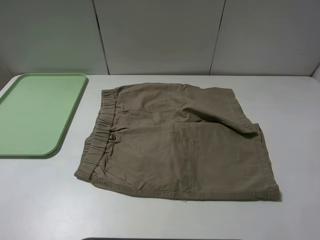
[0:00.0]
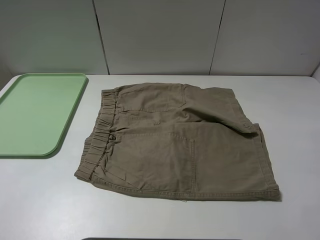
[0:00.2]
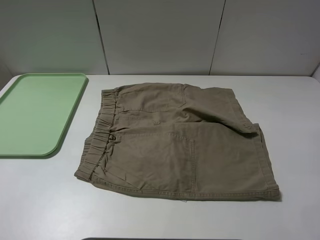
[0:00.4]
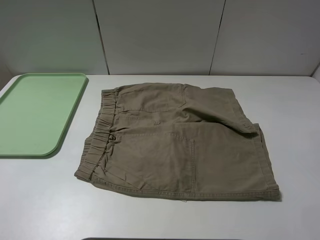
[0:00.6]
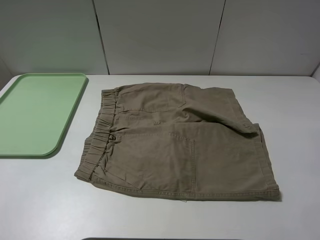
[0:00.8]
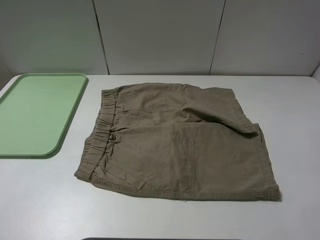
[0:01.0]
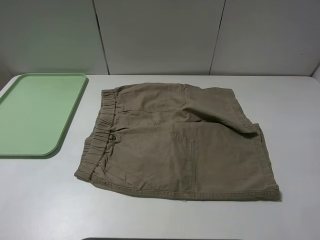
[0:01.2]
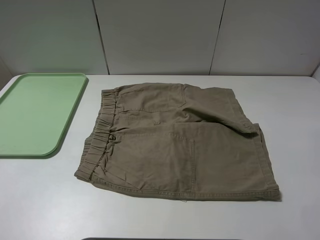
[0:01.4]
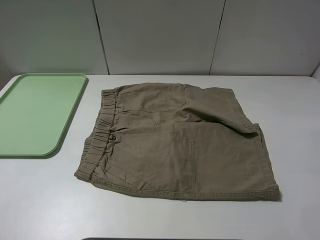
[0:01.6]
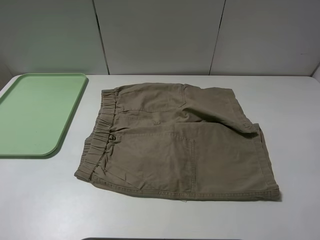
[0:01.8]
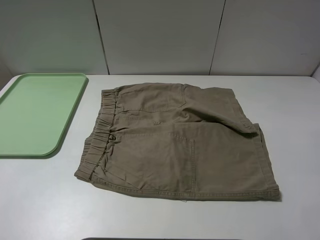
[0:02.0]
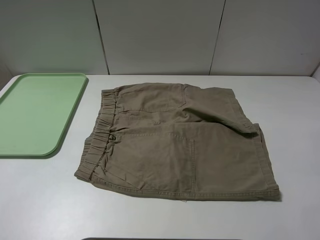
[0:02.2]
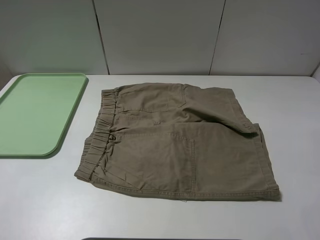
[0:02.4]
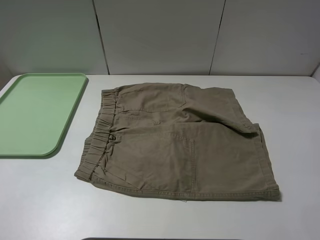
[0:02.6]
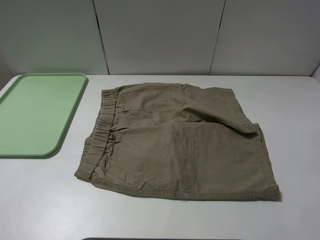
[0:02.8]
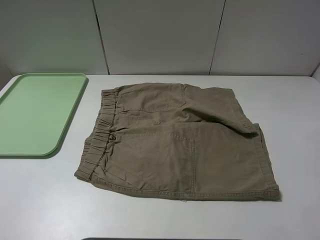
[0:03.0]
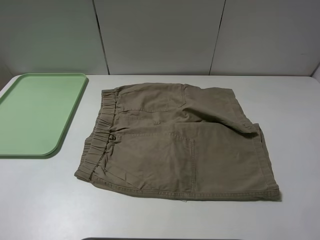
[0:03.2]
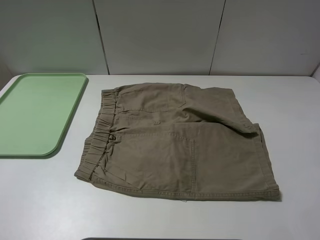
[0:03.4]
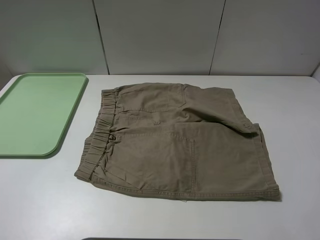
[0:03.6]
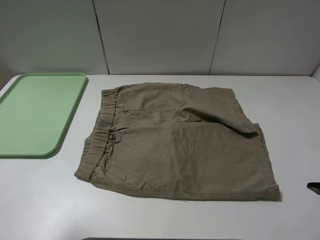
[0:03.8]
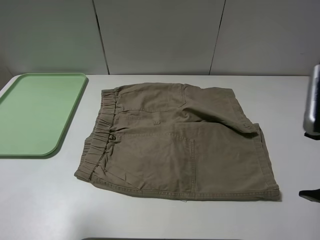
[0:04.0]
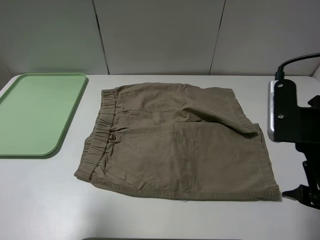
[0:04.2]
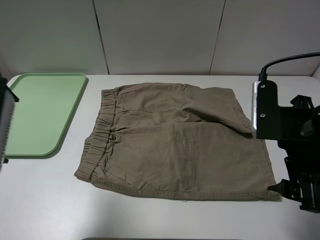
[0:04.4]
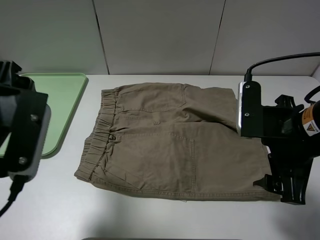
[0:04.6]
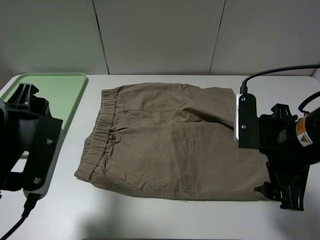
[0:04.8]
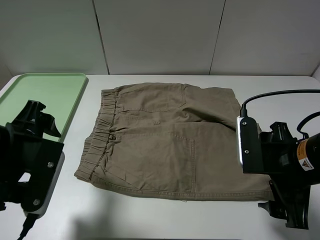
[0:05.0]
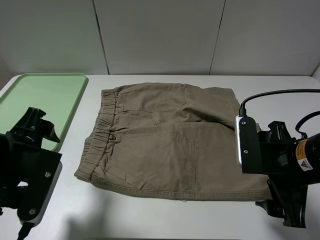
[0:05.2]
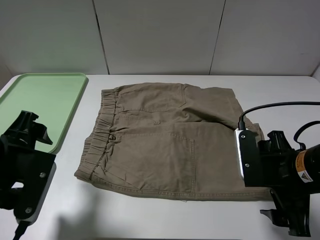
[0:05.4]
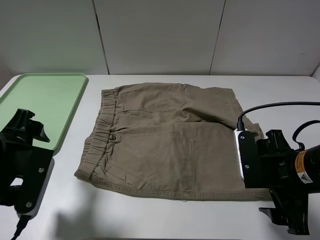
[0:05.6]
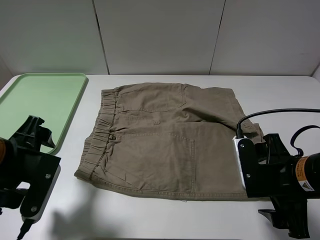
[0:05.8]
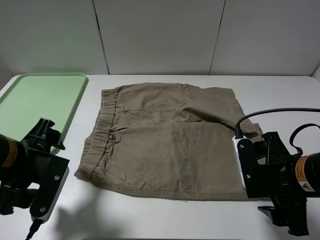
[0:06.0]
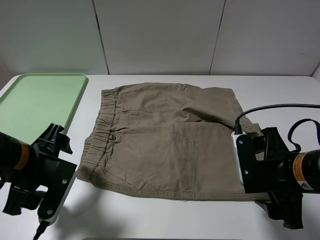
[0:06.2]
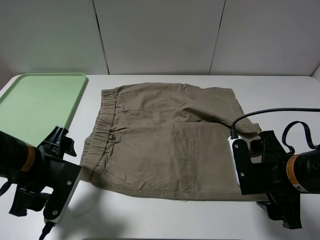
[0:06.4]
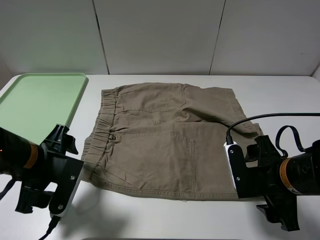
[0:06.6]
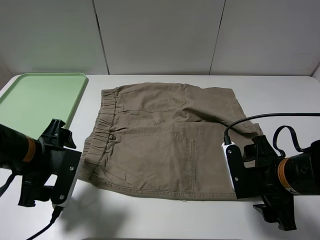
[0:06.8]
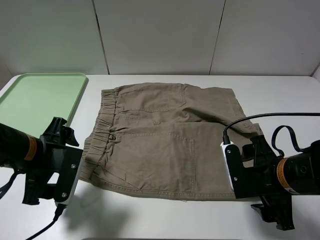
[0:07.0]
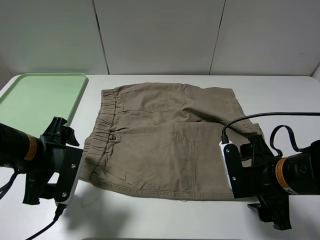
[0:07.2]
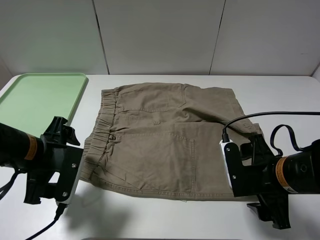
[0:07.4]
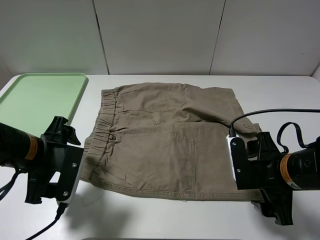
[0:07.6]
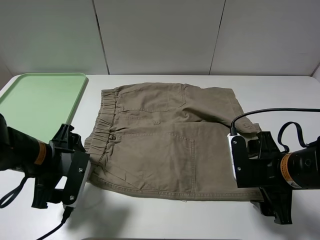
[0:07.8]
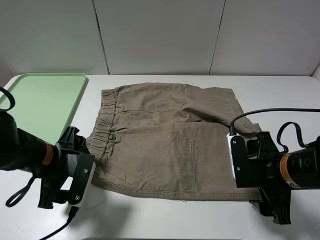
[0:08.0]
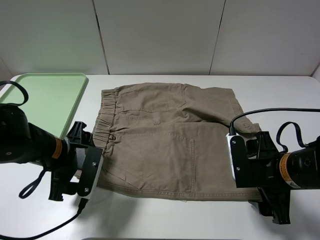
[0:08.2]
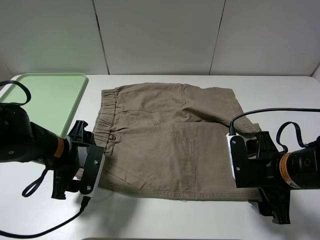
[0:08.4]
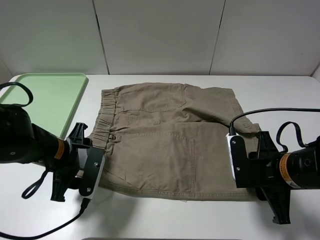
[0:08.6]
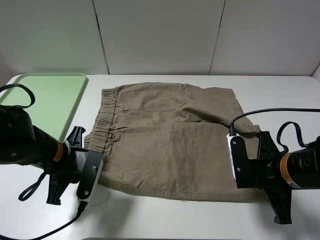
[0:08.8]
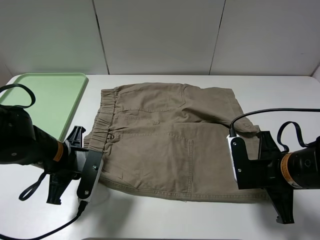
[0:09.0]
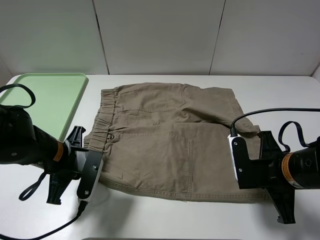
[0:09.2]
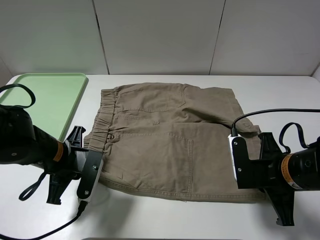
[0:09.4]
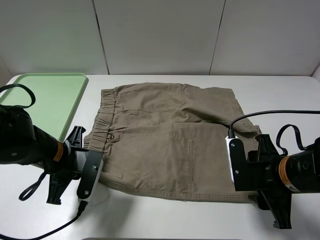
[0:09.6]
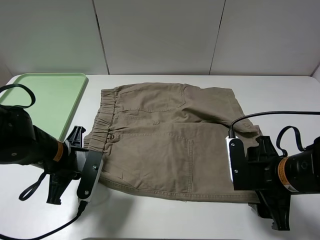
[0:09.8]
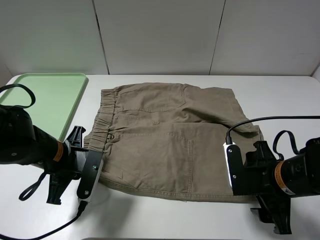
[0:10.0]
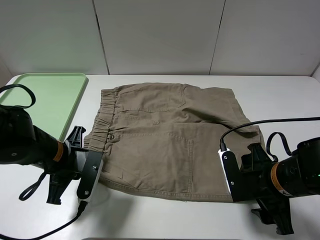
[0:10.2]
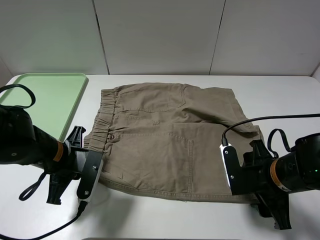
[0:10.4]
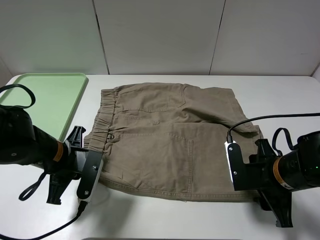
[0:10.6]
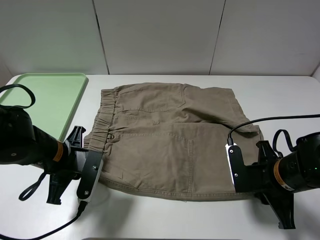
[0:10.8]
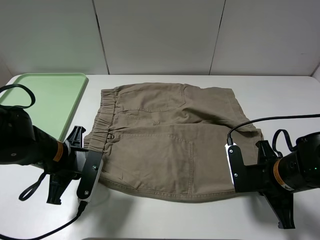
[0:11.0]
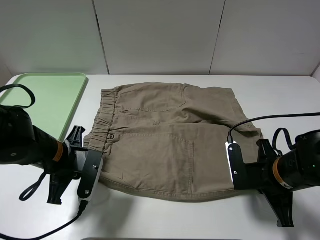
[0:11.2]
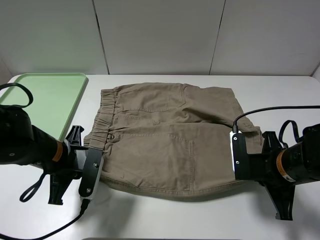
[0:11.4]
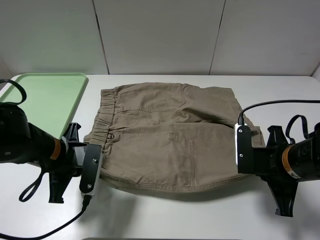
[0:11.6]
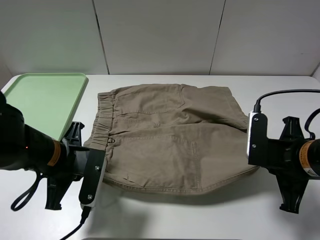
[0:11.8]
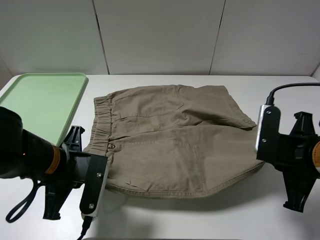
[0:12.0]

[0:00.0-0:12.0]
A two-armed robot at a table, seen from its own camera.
Task of the whole recording: fold the khaki jeans in half with two grippers, then fold them in half again, and use the left claw to place the folded fold khaki jeans on the tray.
Step, 0:00.0 to 0:08.8: Grasp the khaki trousers with the left gripper.
Step, 0:09.0 to 0:11.0: Grasp the khaki trousers with the right gripper.
0:00.0 to 0:01.6: Both grippers stay about where they are.
0:03.0 to 0:04.4: The right gripper is displaced forward and to the left by about 15 cm; the left gripper moves forward and to the right, roughly 20 cm.
0:04.4 to 0:06.0: The left gripper shifts about 15 cm downward. Meanwhile the right gripper goes some 10 cm downward.
0:06.0 to 0:07.6: The grippers move only a little.
0:07.6 to 0:09.0: The right gripper closes its fingers. The left gripper closes up.
0:09.0 to 0:10.4: The right gripper opens its fingers.
0:10.4 to 0:12.0: The left gripper ends up about 10 cm from where it was, while the right gripper travels upward by about 10 cm, and closes.

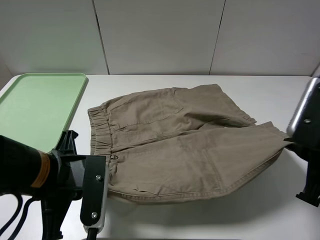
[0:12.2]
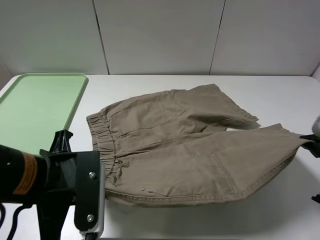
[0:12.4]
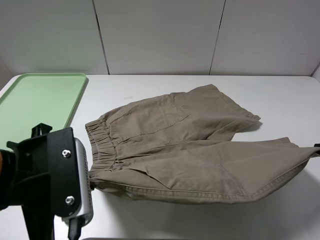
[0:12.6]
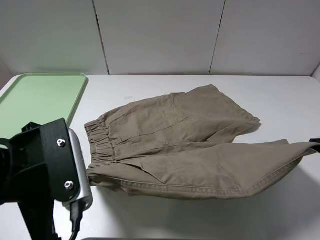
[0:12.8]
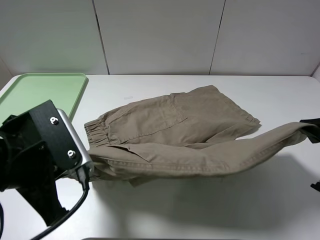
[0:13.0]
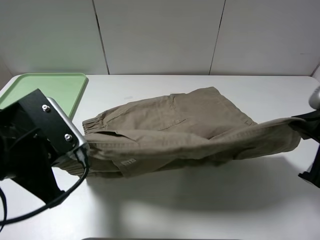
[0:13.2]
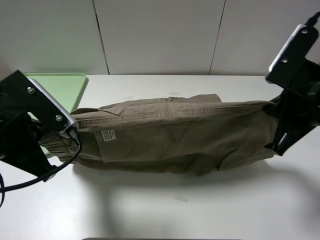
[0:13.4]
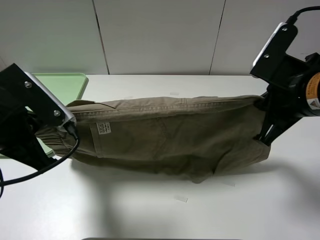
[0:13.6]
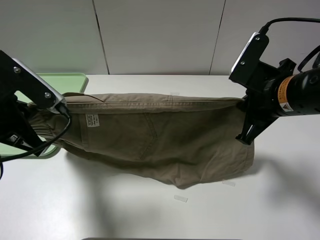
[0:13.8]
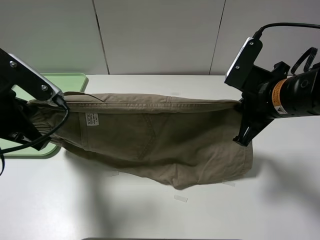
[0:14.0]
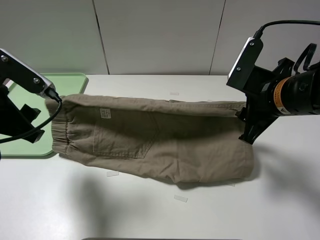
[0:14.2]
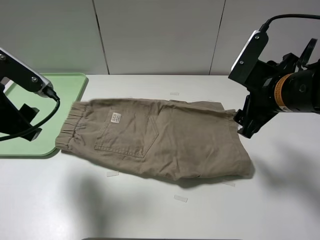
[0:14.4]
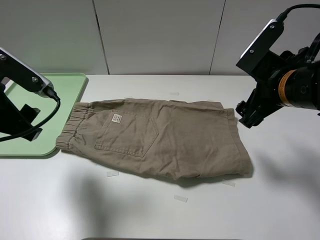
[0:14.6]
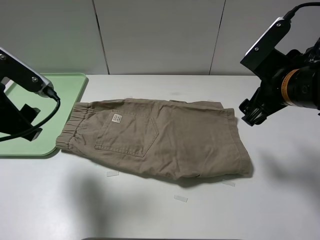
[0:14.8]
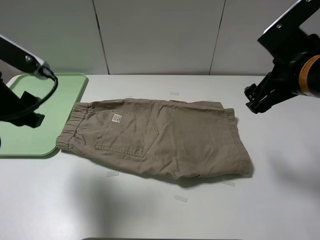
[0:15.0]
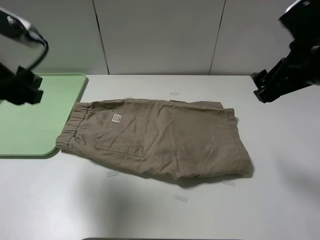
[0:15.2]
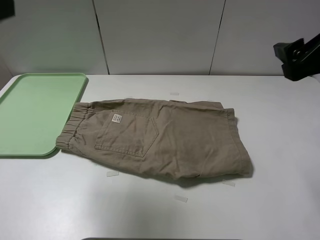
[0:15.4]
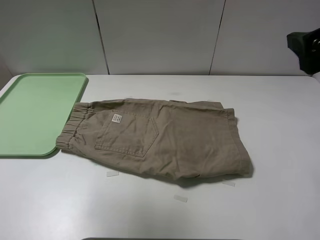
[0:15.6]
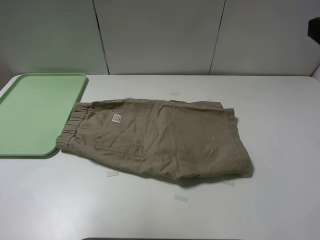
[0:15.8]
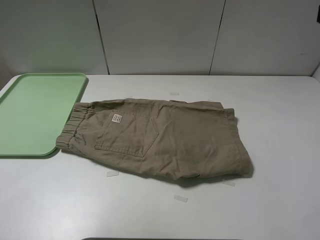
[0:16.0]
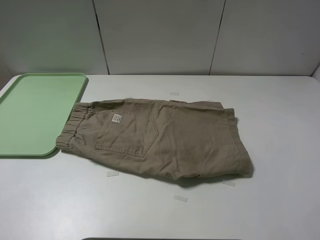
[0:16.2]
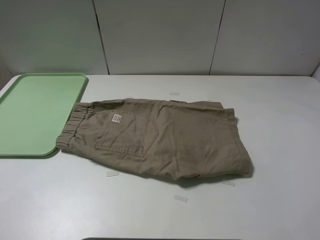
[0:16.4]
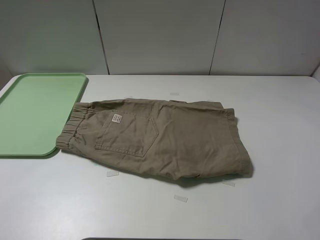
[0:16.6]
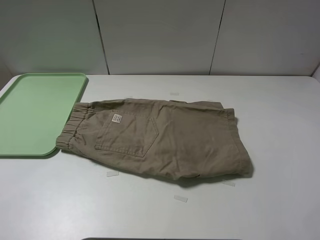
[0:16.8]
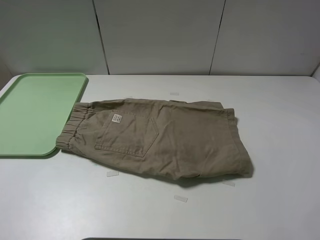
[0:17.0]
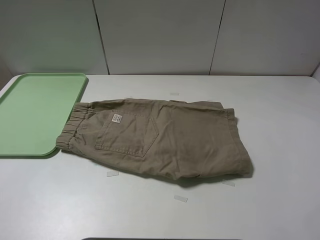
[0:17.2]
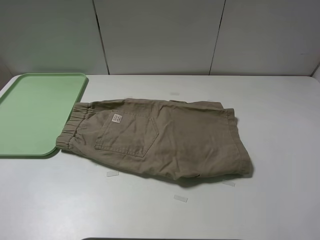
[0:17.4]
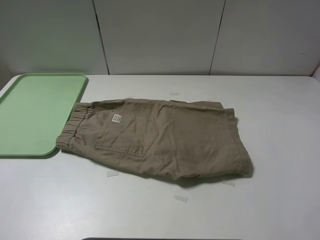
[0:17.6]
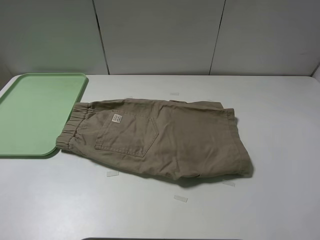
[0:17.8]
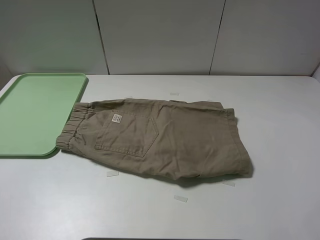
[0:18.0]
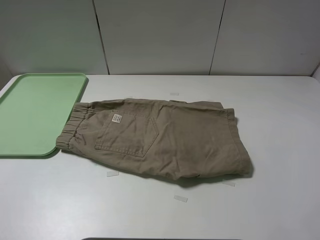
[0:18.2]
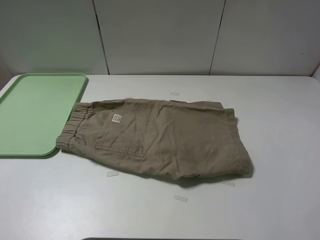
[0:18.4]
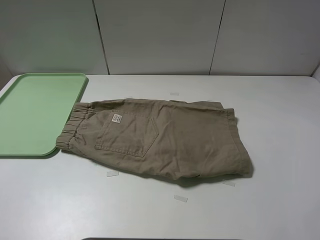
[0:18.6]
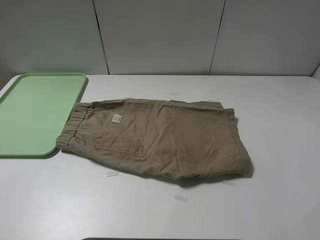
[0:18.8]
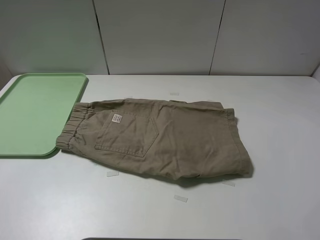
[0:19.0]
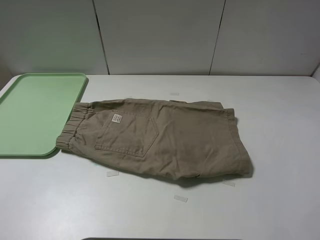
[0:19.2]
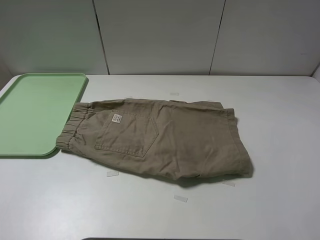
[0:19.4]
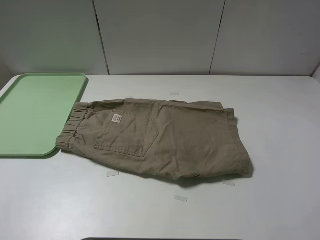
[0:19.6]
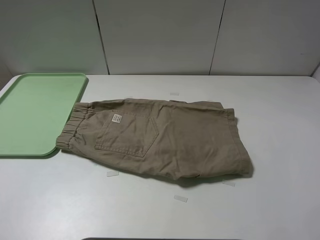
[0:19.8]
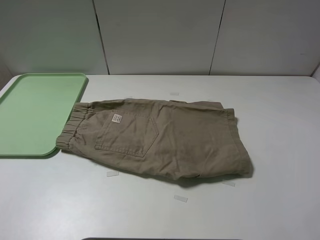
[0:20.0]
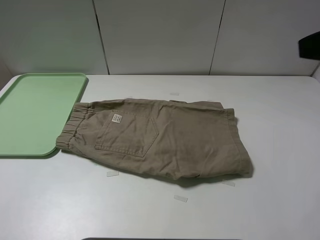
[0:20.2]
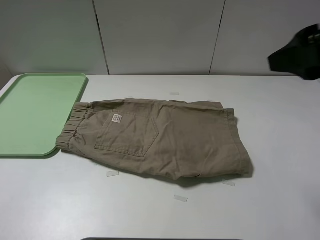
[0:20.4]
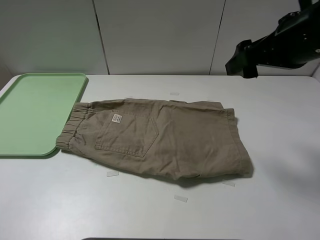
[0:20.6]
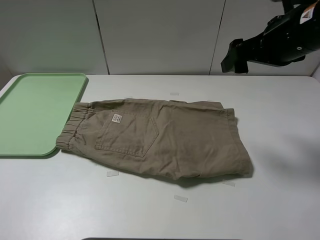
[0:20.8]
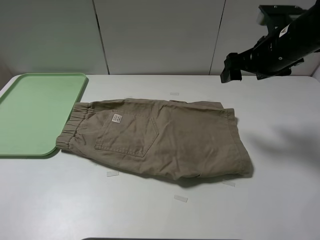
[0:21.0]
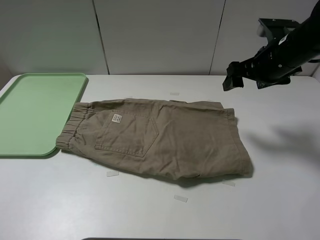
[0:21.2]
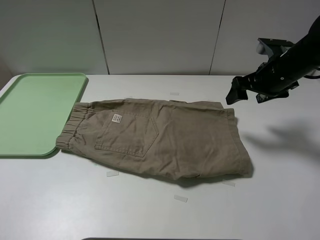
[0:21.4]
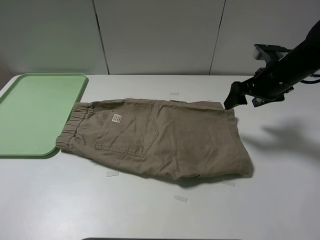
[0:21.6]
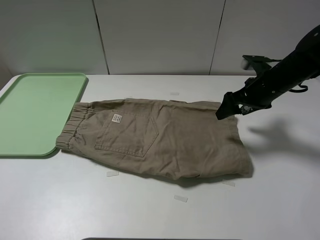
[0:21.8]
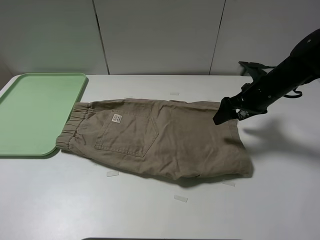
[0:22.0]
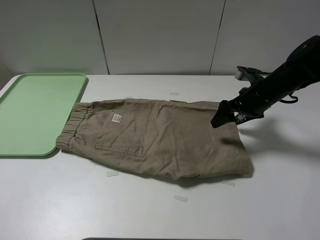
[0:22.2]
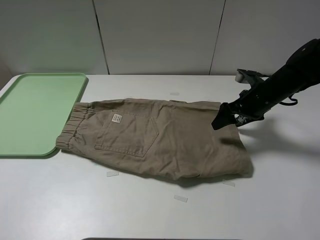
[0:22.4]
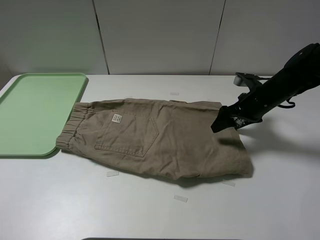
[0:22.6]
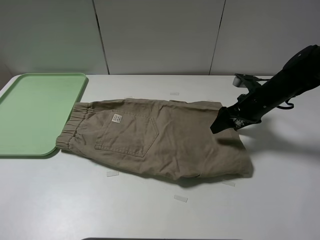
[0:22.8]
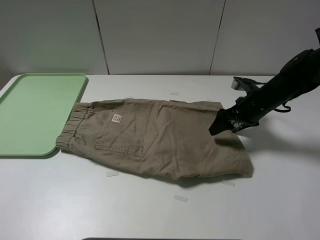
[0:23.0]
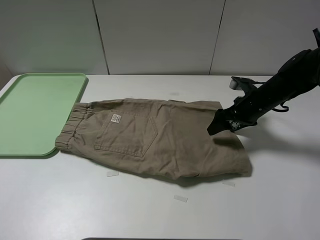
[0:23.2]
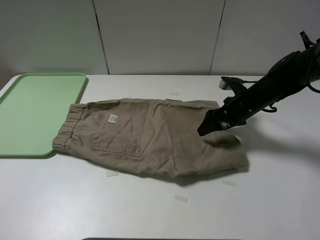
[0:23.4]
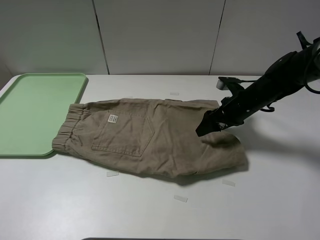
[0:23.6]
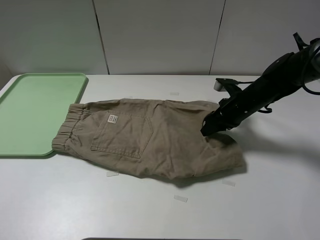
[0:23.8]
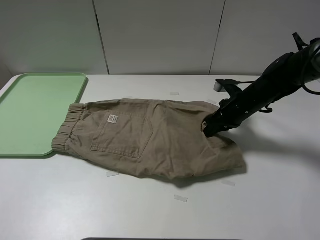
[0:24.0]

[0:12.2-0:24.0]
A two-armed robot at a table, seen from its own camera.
Task of the whole recording: fold the khaki jeans in half with two grippers, then fold them in half again, and use the left claw to place the folded fold khaki jeans on the tray.
Step, 0:12.2 to 0:14.2: Fold the khaki trousers upwards with the left gripper.
Step, 0:14.6 to 0:24.0: Grasp the khaki trousers with the right gripper.
0:12.2 to 0:13.6: The left gripper goes roughly 10 cm upward and to the left. Meanwhile the right gripper shifts some 10 cm forward and to the left.
0:13.6 to 0:15.2: The left gripper shifts some 5 cm upward, and opens up. Meanwhile the right gripper changes place by roughly 5 cm, and opens its fingers.
0:15.2 to 0:16.6: The right gripper moves upward and backward, roughly 15 cm; the left gripper is displaced backward, upward and to the left by roughly 20 cm.
0:19.6 to 0:21.0: The right gripper heads forward and downward, covering about 25 cm.
0:21.0 to 0:22.6: The right gripper moves downward, roughly 15 cm.
0:22.6 to 0:24.0: The right gripper closes its fingers.
